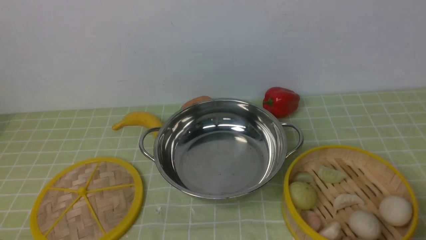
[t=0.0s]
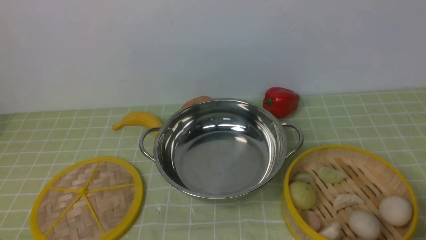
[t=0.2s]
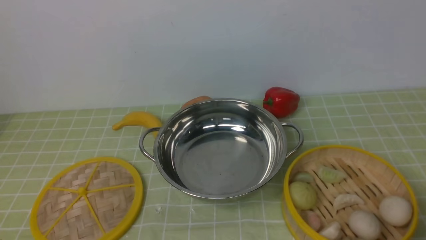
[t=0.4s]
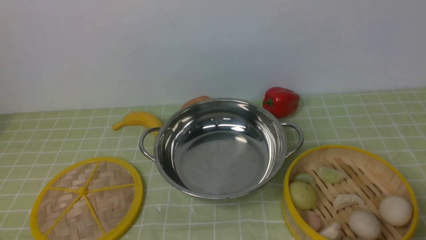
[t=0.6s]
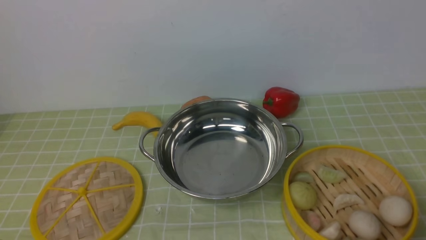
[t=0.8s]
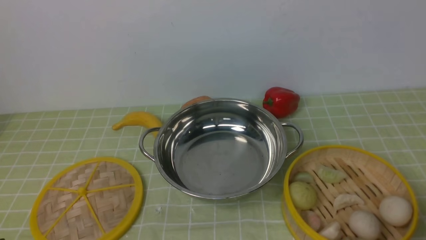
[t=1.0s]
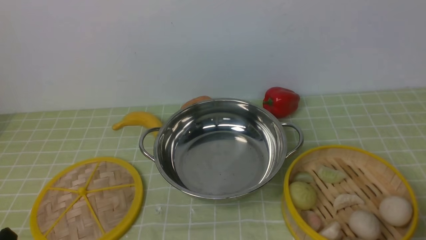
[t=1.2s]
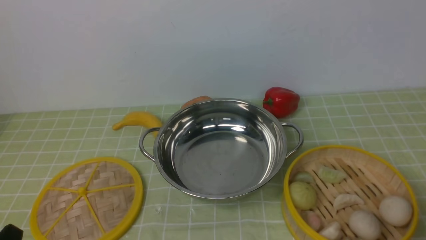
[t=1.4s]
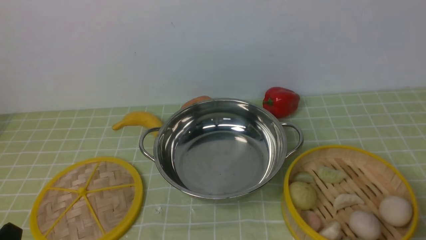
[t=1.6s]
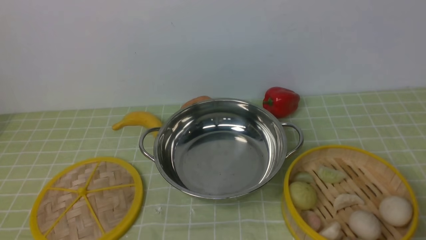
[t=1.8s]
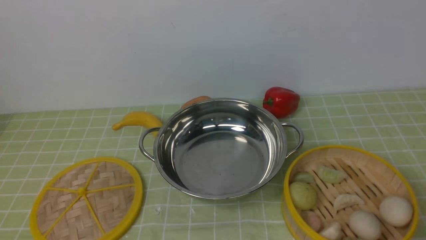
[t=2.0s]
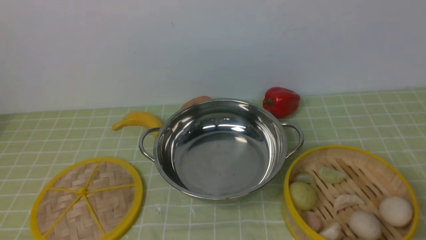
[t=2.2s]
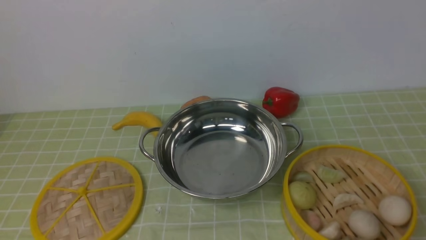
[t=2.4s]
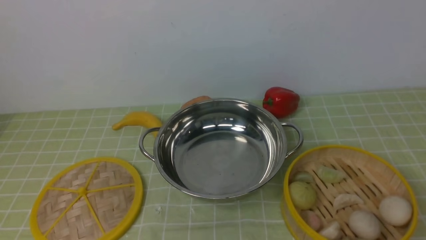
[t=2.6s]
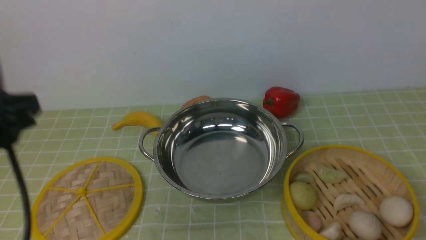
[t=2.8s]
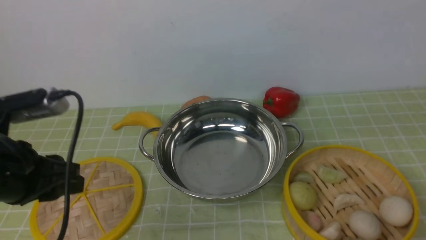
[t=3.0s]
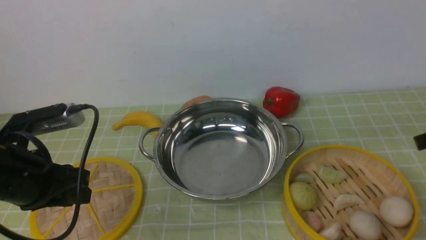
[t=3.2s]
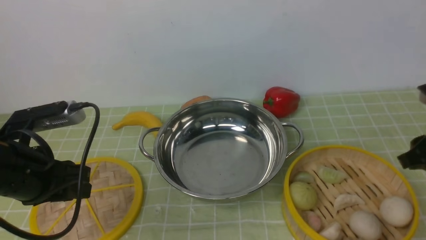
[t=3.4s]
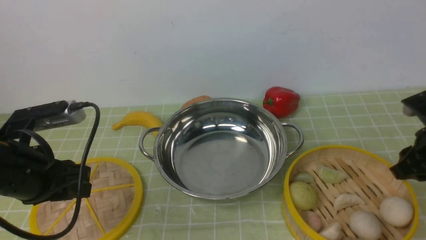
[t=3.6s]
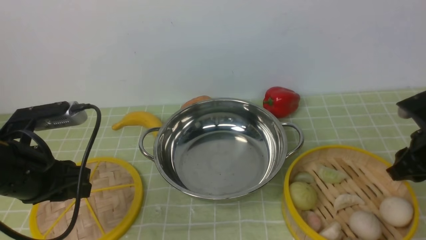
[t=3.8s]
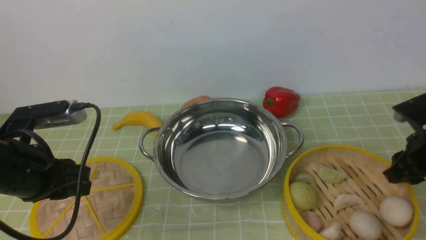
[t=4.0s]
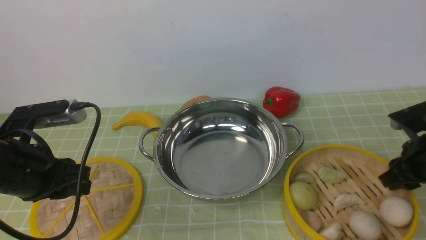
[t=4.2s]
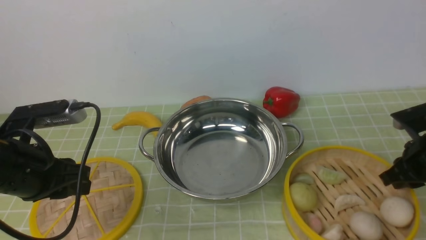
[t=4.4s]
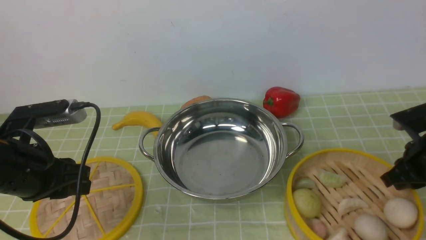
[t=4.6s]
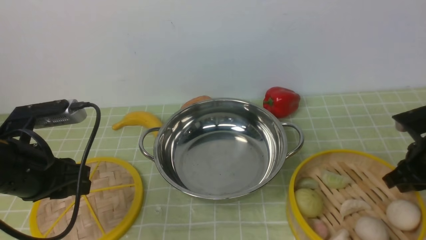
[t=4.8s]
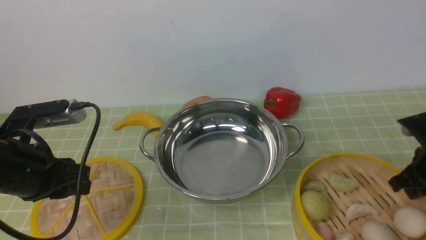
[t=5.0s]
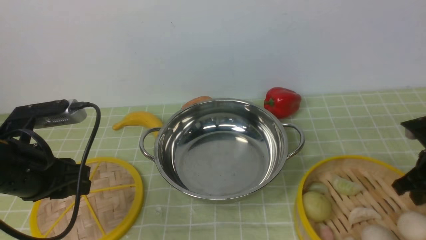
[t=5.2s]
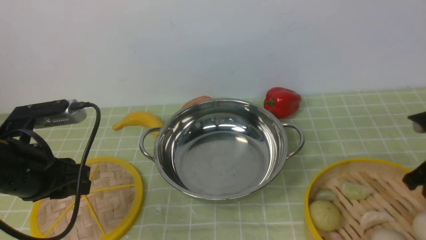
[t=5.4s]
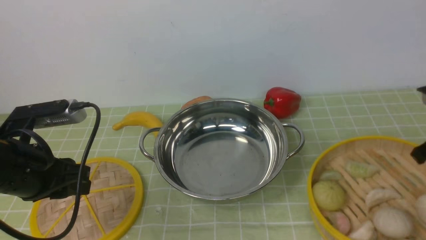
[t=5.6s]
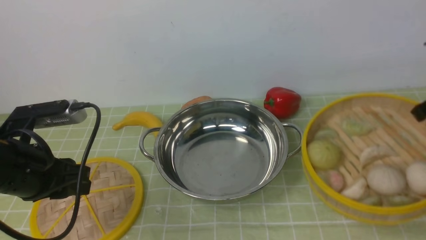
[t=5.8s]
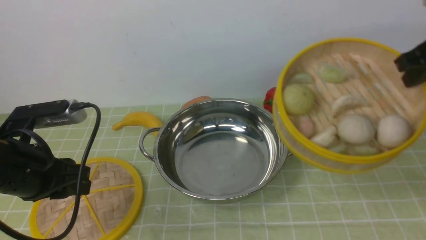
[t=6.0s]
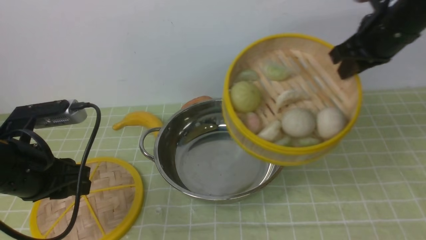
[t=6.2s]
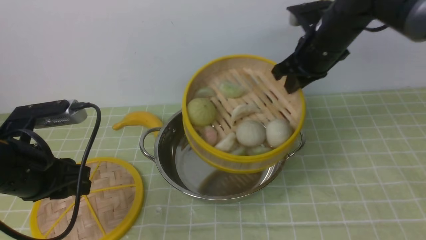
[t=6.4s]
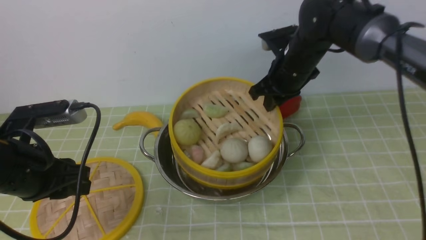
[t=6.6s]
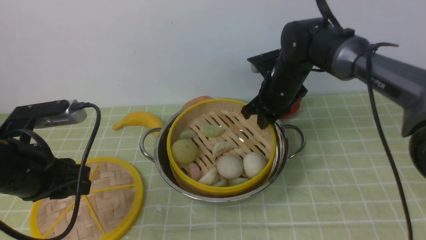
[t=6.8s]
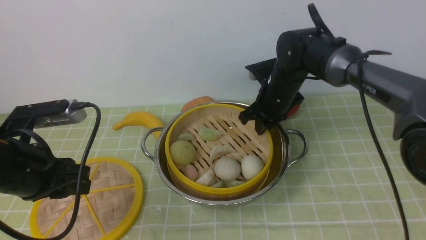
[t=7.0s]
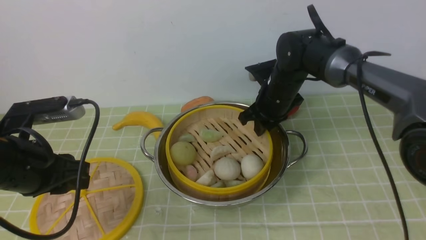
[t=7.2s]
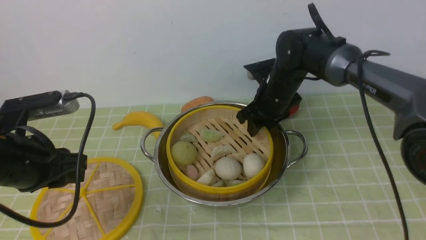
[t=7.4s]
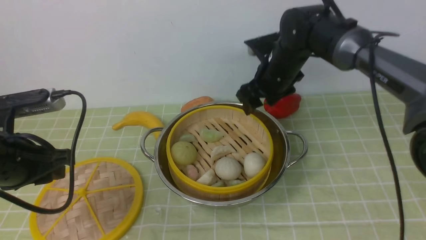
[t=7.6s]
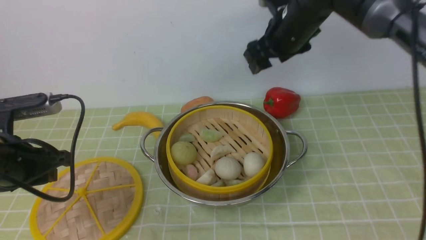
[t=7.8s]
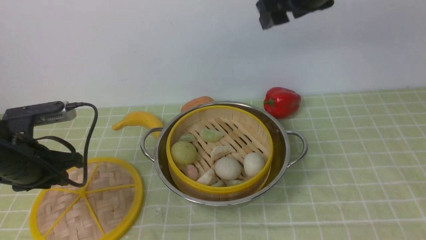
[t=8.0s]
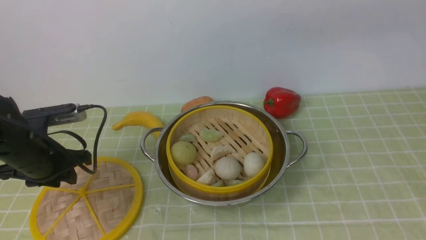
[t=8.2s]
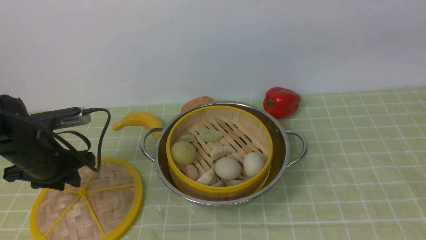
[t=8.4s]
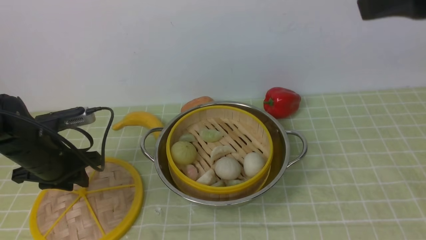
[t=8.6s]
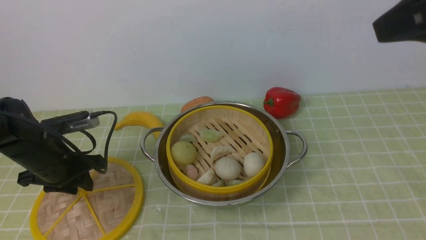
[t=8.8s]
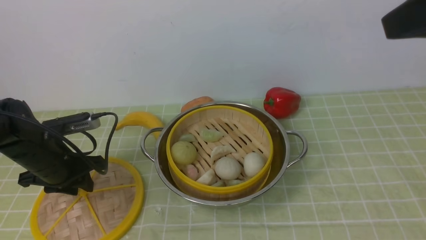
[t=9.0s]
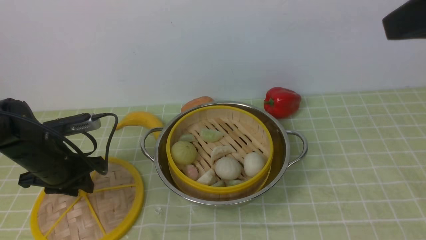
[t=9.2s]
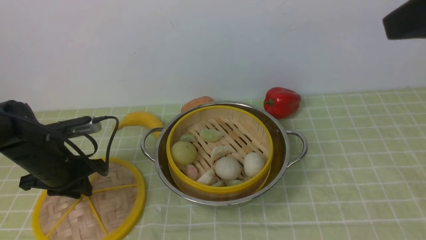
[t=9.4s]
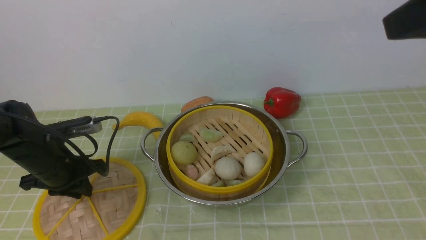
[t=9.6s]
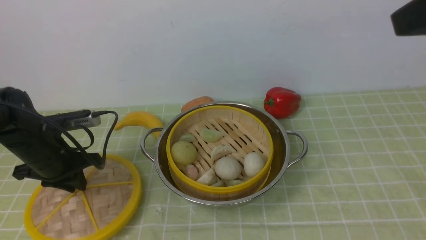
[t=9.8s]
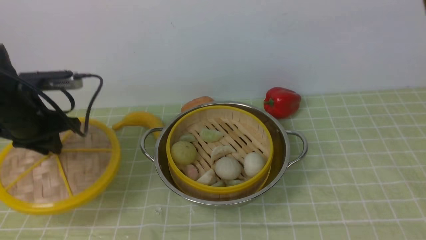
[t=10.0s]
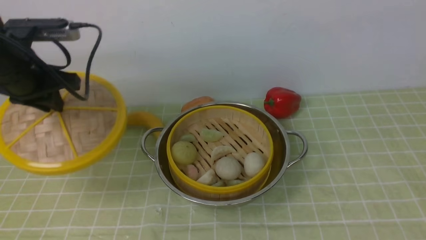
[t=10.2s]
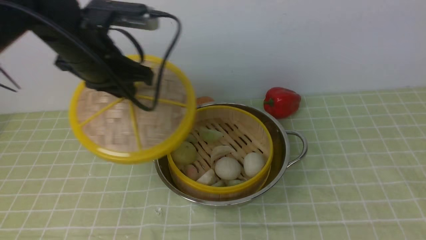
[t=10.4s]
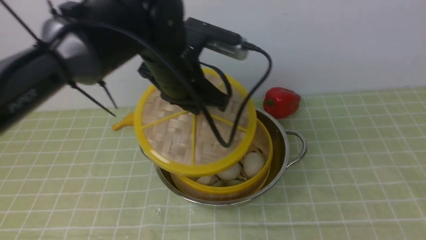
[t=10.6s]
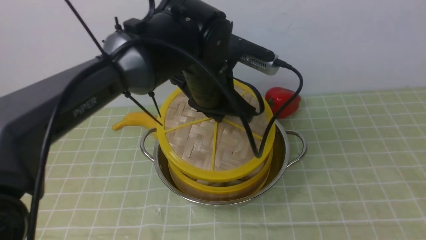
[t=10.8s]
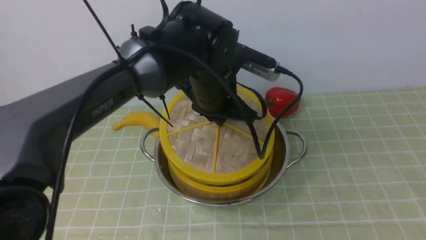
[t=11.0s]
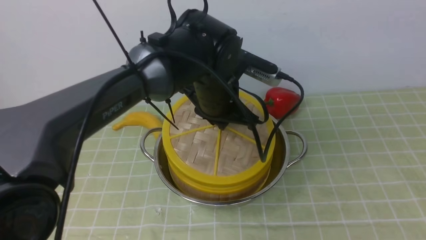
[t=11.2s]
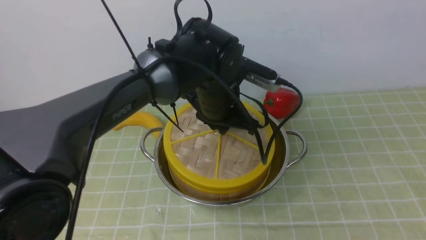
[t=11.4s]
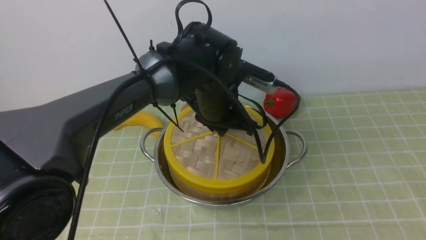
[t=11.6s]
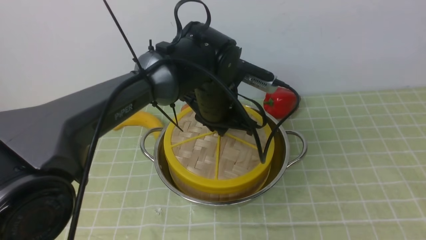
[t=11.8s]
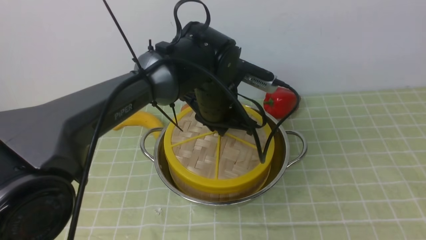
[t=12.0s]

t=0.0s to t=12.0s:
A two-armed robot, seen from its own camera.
Task of the whole recording: place the steamer in the pot on the green tablecloth, and put the lid on the steamer.
Step, t=0.0s to t=6.0s: use the right arm to lift the steamer closest to it.
Step, t=6.2s to t=8.2s: use the right arm to put the steamer into the iron steamer pot in the middle.
Step, t=8.4s to t=10.0s: use the left arm to lift the lid of the steamer.
t=1.6s to t=3.0s: The left gripper is displaced forward and upward by roughly 20 cm.
t=3.0s to t=4.4s: The right gripper is displaced downward and forward by roughly 15 cm.
t=4.4s to t=6.0s: The right gripper goes roughly 15 cm upward.
t=6.0s to t=7.6s: The right gripper travels to the left, forward and downward by roughly 20 cm, and opens up.
t=7.6s to t=9.0s: The left gripper heads downward and forward, covering about 10 cm; the right gripper heads backward, upward and to the right, covering approximately 35 cm.
t=9.0s to t=10.4s: The left gripper is displaced upward and to the right by approximately 20 cm; the right gripper heads backward, covering roughly 5 cm.
t=10.4s to t=12.0s: The left gripper travels to the right and downward by approximately 15 cm.

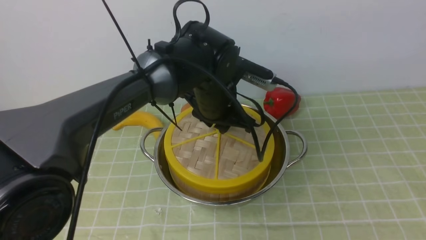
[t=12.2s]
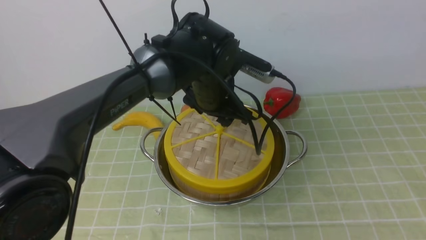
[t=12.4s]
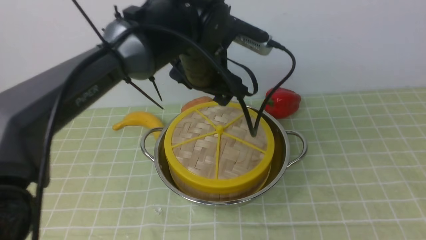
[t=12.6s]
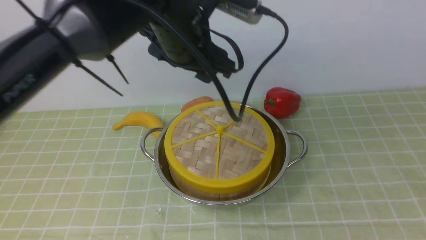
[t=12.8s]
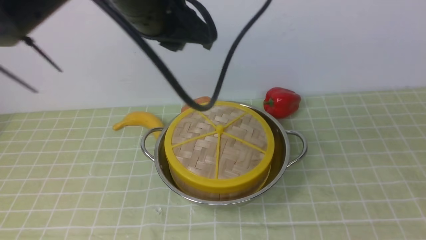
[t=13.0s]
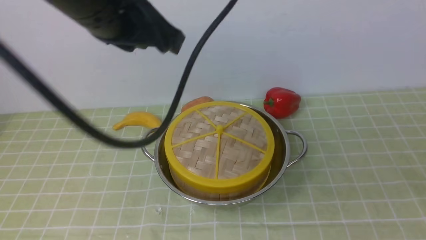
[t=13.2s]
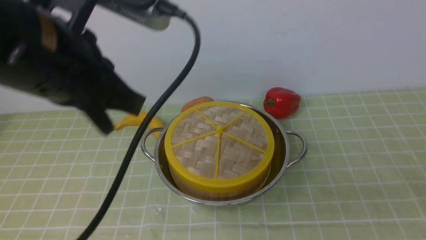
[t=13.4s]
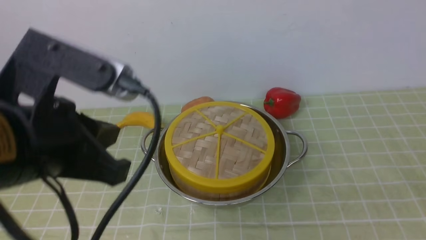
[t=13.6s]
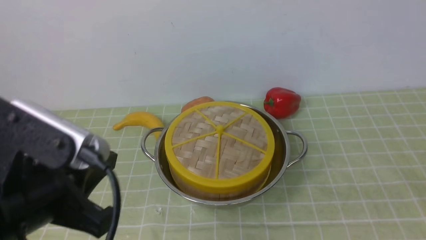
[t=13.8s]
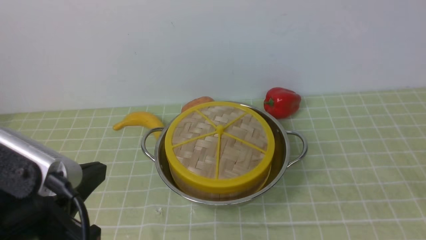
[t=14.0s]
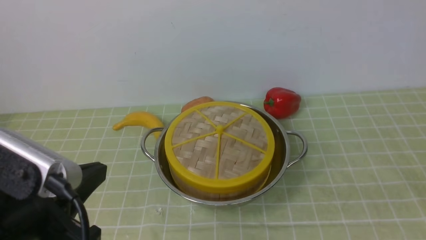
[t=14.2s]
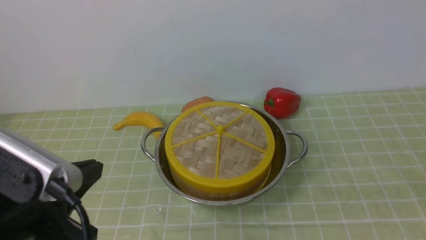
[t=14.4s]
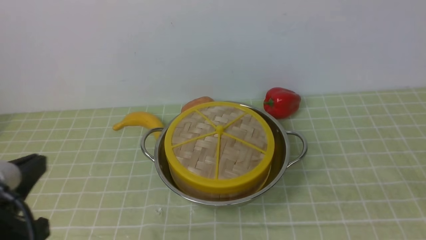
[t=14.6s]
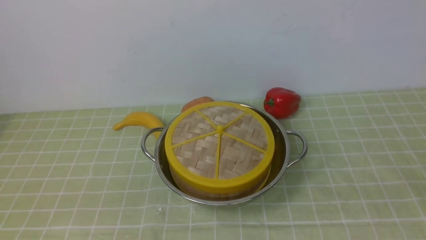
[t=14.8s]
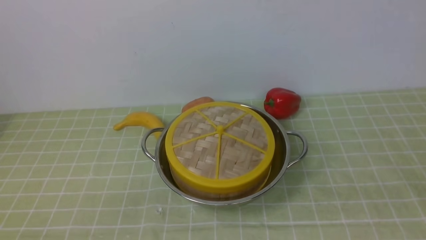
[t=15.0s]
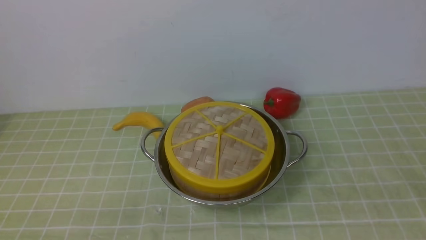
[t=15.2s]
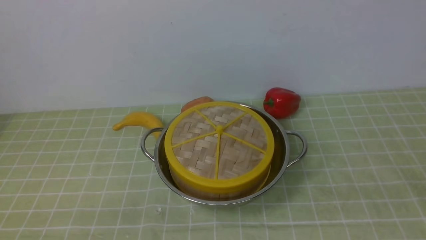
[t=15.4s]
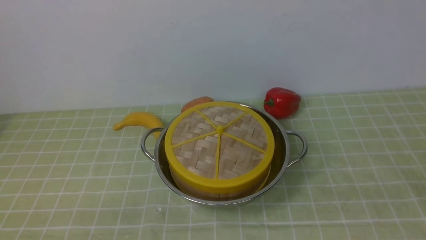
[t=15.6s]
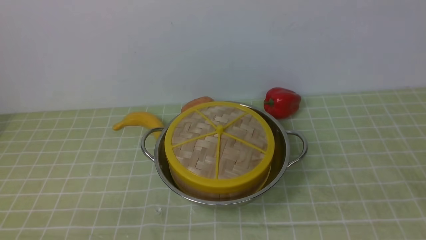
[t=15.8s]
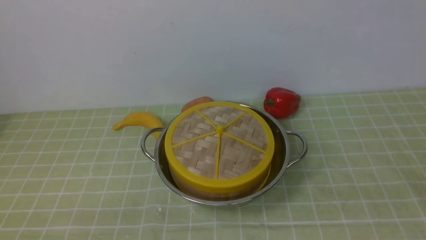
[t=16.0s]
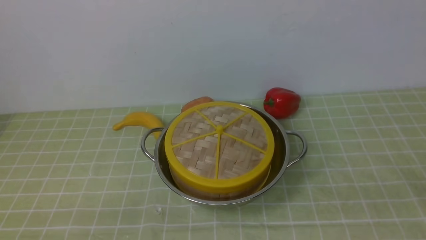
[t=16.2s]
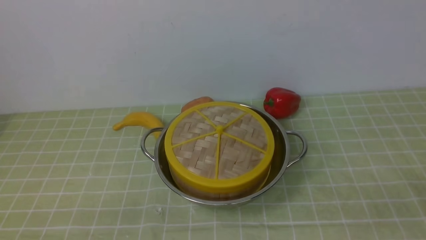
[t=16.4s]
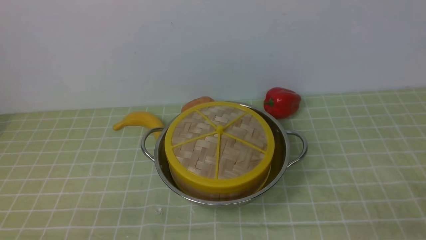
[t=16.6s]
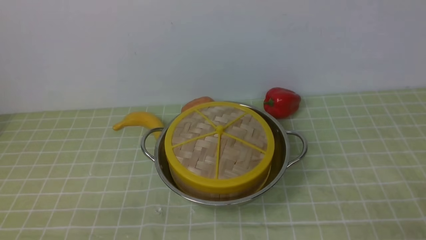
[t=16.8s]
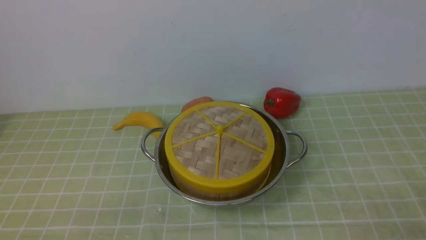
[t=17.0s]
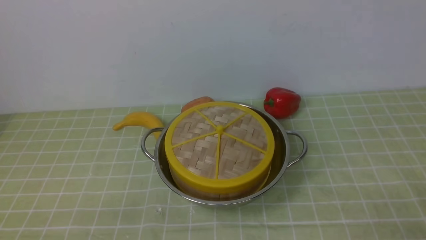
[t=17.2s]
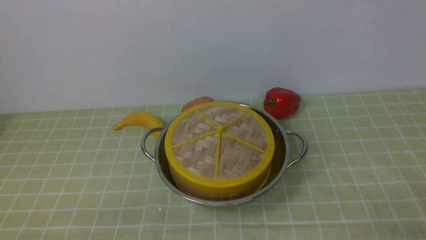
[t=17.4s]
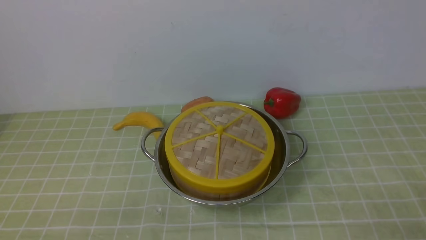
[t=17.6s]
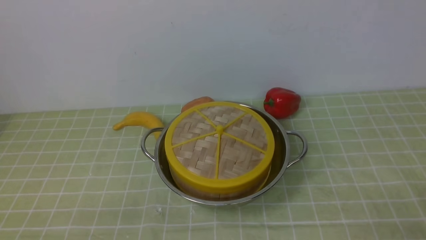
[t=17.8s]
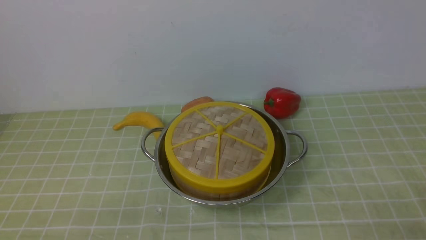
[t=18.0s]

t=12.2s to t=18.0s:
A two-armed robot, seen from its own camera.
Task of the whole recording: place the steamer in the pot on the green tablecloth, and put the lid on the steamer.
t=12.2s to t=13.6s: The left gripper shifts about 30 cm backward, to the left and upward, and closes its fingers. Meanwhile the right gripper moves downward and backward, roughly 20 cm, and closes its fingers.
t=13.6s to t=15.0s: The left gripper heads downward, backward and to the left, covering approximately 20 cm.
t=16.6s to t=18.0s: Neither gripper changes place.
